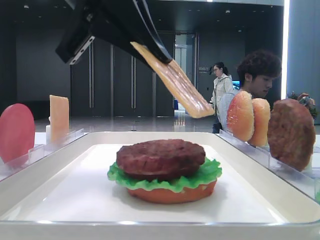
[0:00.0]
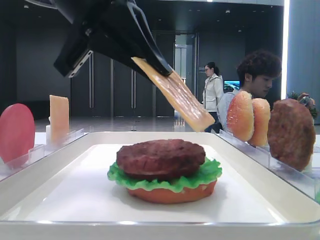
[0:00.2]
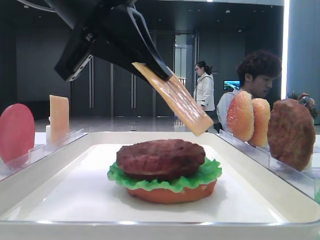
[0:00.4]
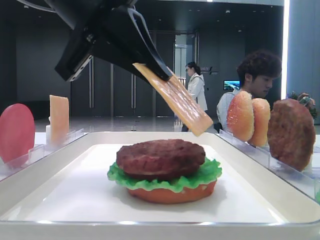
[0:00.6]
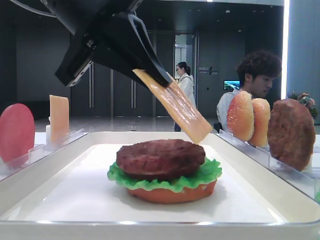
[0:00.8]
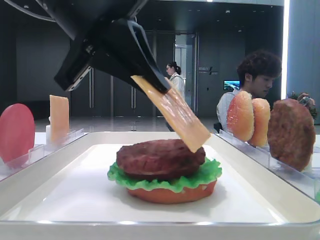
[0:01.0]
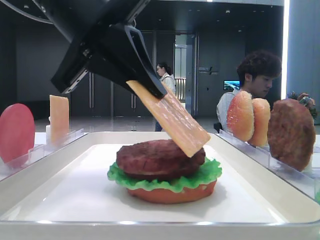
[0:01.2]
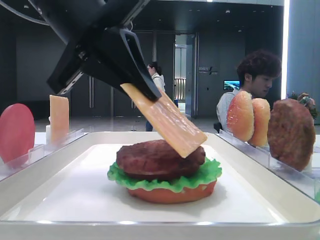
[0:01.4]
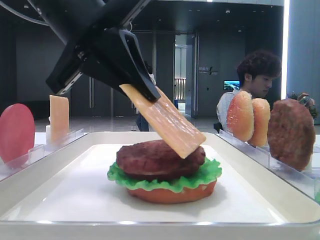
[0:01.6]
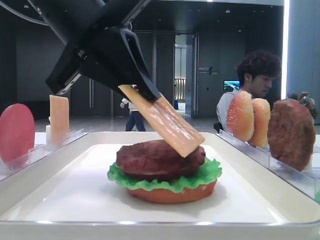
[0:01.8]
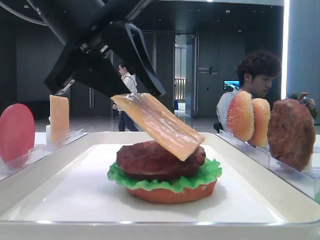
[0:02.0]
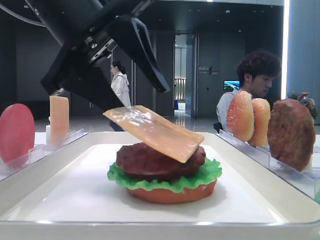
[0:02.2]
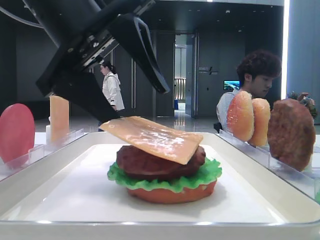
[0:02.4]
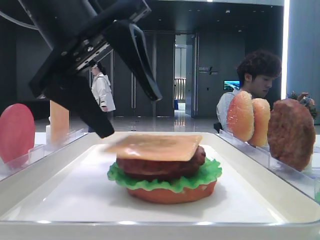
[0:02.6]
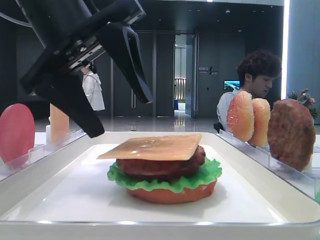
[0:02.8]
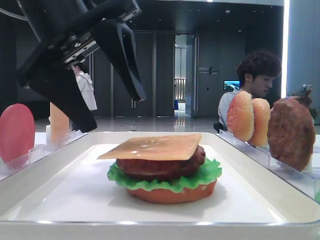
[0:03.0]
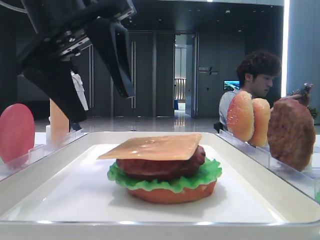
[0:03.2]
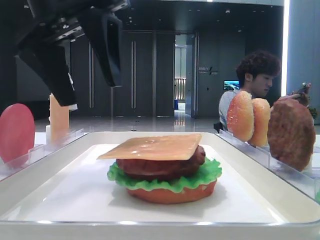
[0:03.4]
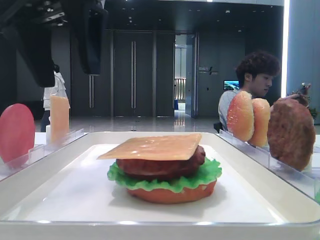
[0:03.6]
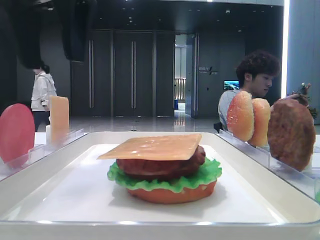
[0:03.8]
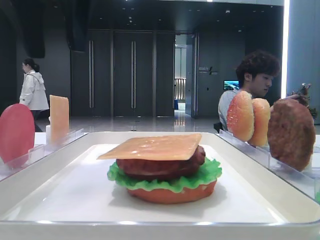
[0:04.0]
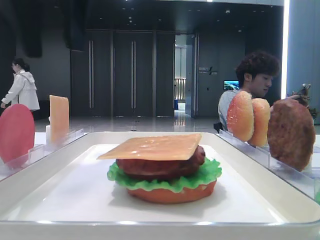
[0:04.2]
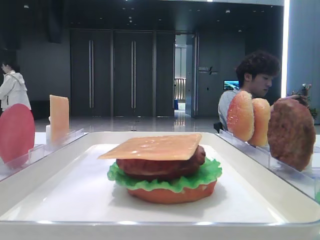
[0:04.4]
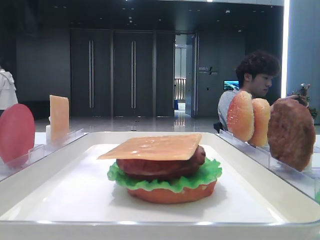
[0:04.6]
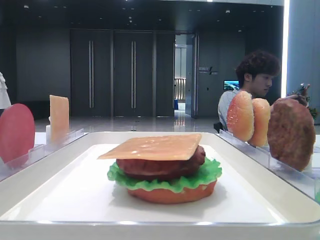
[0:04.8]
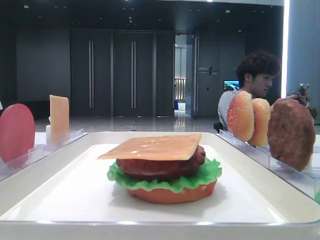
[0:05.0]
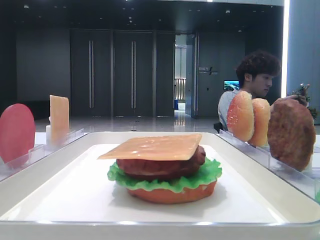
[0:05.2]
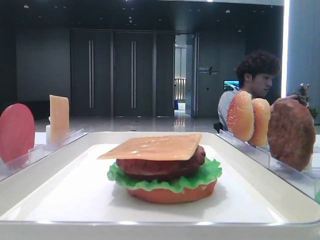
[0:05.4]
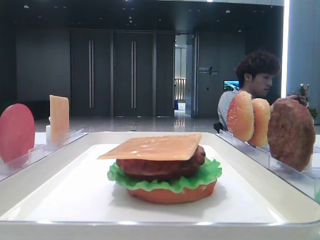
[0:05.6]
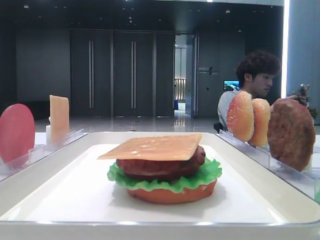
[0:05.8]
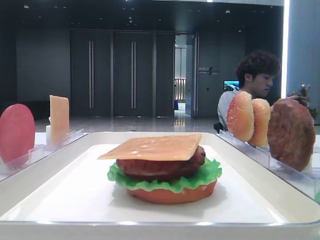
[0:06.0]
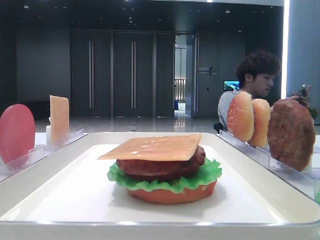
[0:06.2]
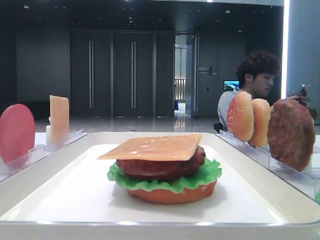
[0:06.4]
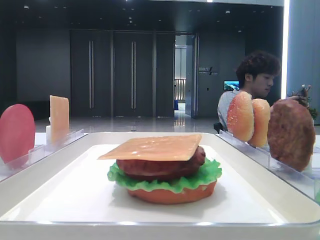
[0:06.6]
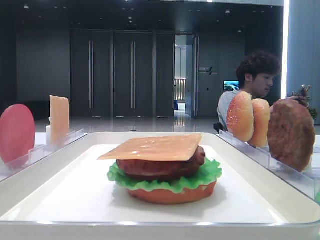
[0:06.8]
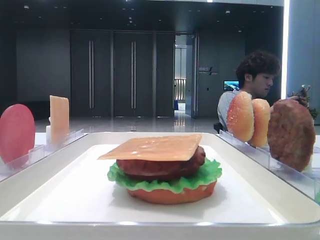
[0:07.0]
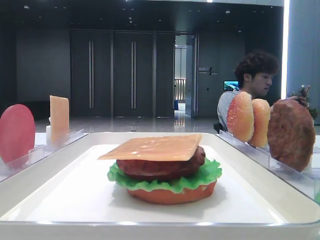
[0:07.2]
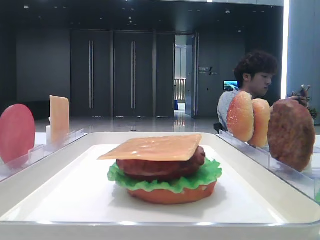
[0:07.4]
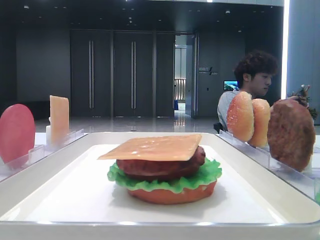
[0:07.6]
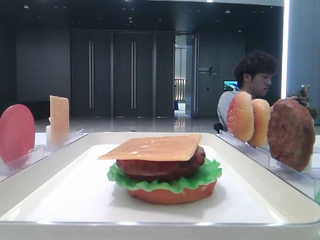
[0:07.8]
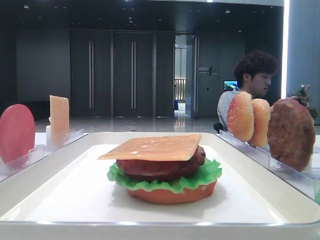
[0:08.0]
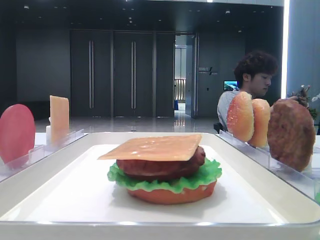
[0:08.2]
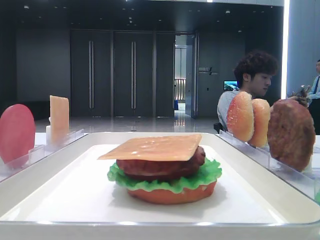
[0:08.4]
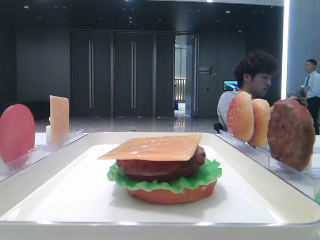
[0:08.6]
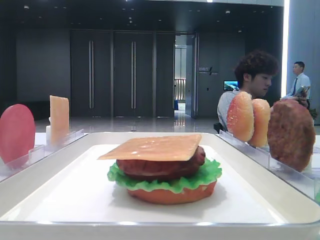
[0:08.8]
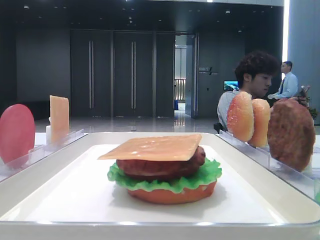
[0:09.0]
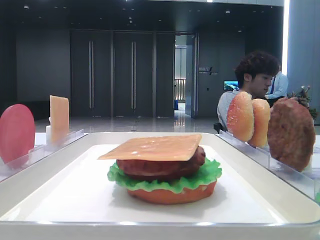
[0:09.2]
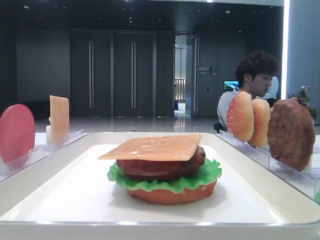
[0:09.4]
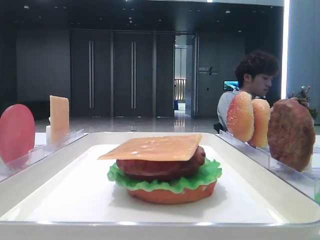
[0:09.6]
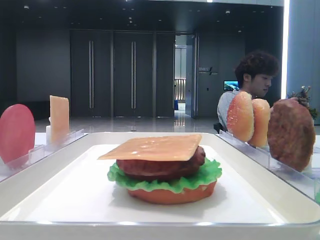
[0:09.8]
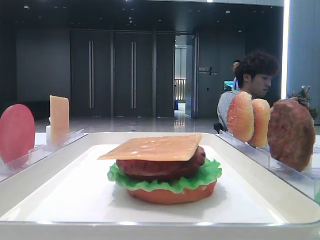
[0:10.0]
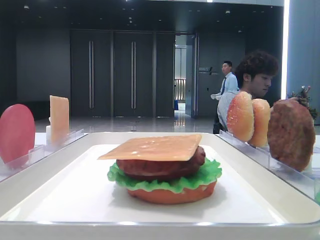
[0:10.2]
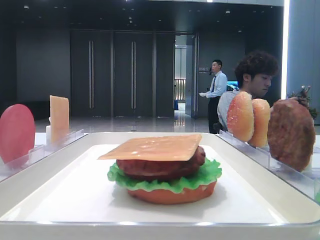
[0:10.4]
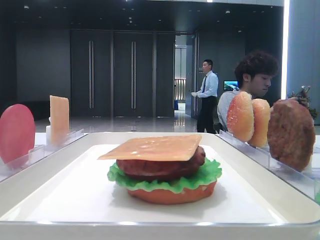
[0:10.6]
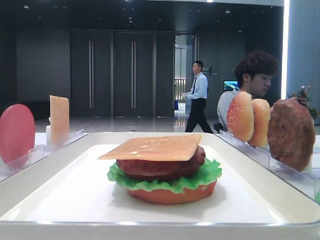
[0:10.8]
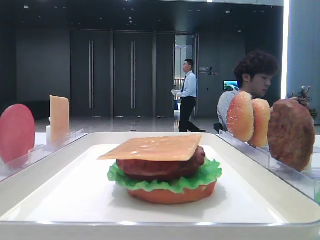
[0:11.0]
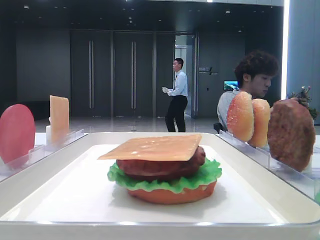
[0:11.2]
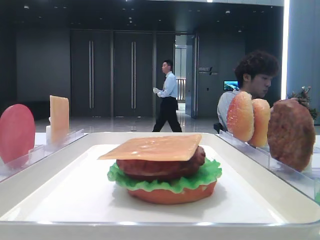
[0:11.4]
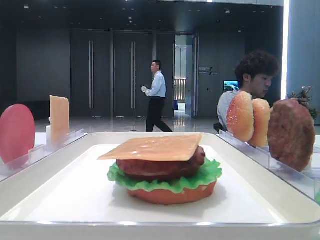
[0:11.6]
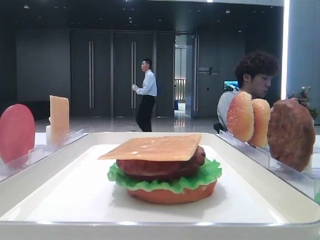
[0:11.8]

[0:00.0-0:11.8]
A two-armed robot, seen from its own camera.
Step, 0:00.0 to 0:02.4: Place the cheese slice on the patty with the left hand.
0:00.0 to 0:01.4: The grippers make only small movements.
0:01.4 to 0:03.0: The left gripper opens up.
0:03.0 to 0:04.4: The left gripper goes approximately 10 cm upward and to the left.
0:04.4 to 0:06.0: The left gripper travels backward and to the left by some 25 cm.
0:07.4 to 0:11.8: Both grippers stay about where they are.

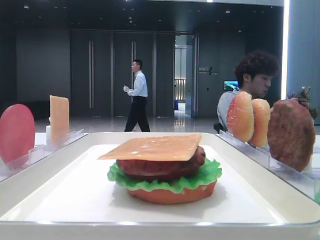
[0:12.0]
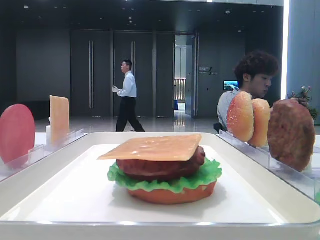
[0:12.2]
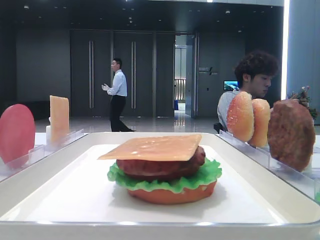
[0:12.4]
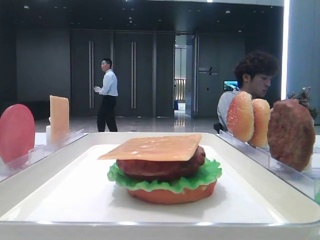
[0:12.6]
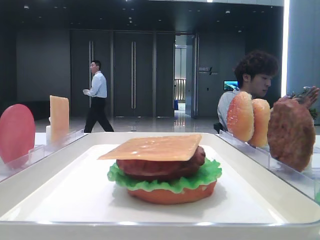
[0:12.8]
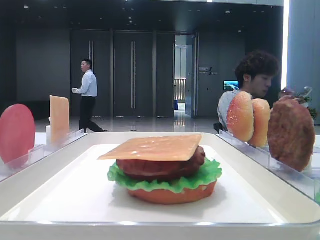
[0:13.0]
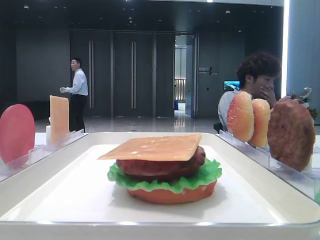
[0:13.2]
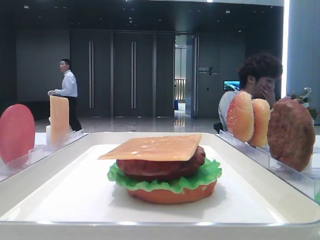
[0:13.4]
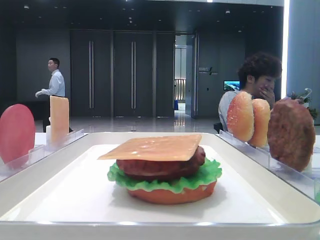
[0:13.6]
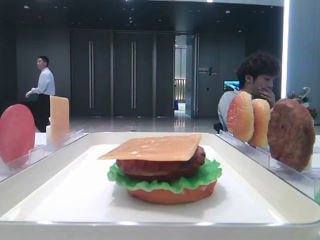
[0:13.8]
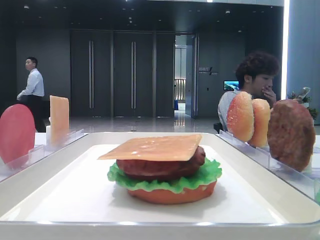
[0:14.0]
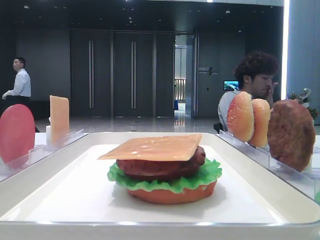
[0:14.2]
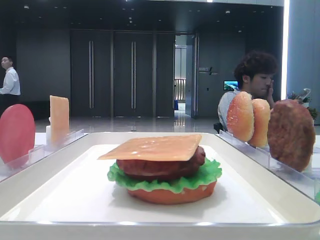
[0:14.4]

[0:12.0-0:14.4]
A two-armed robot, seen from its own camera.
0:12.0 to 0:14.4: Both grippers stay about where they are.

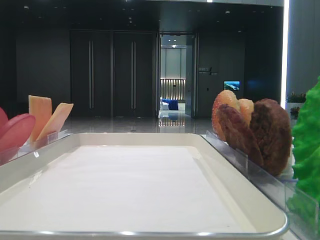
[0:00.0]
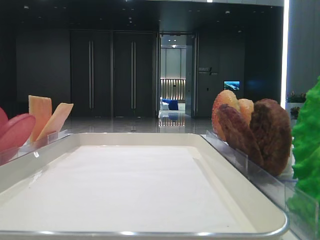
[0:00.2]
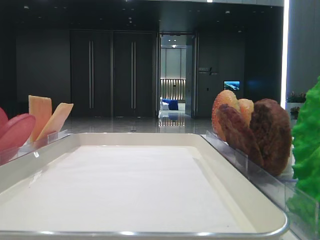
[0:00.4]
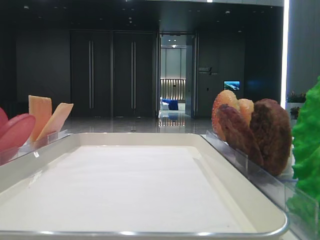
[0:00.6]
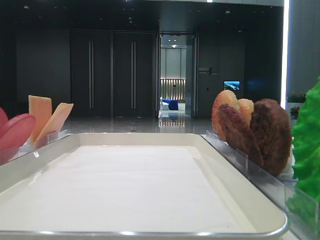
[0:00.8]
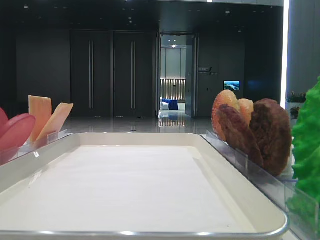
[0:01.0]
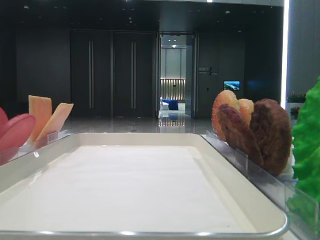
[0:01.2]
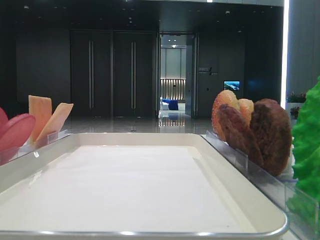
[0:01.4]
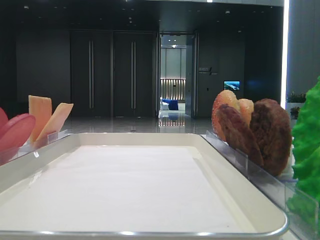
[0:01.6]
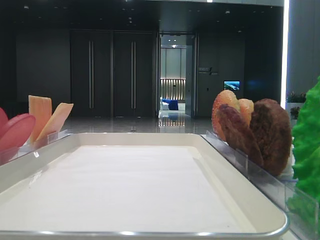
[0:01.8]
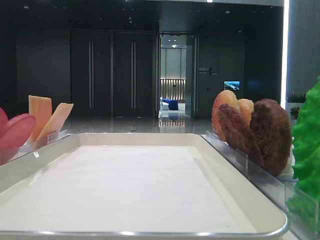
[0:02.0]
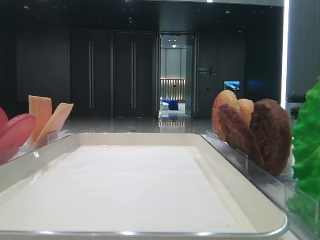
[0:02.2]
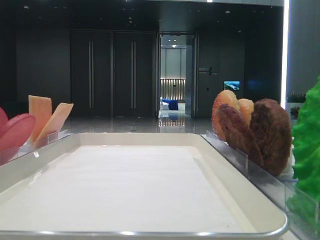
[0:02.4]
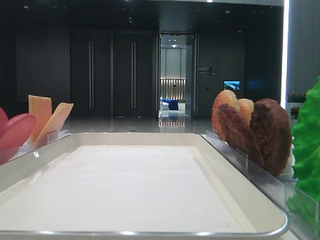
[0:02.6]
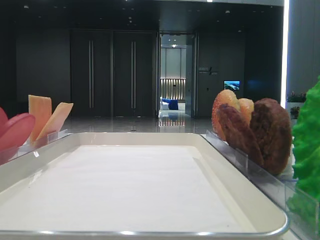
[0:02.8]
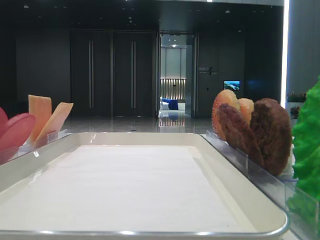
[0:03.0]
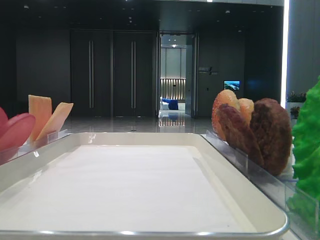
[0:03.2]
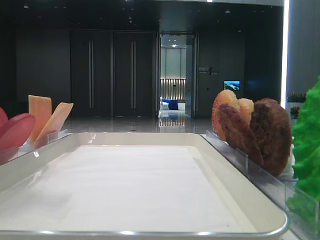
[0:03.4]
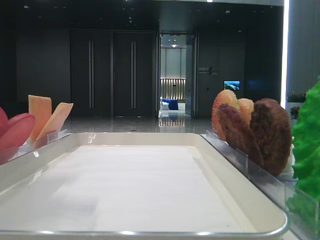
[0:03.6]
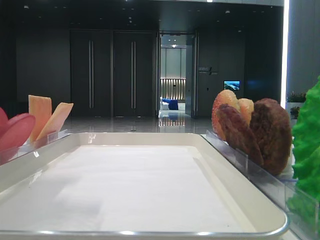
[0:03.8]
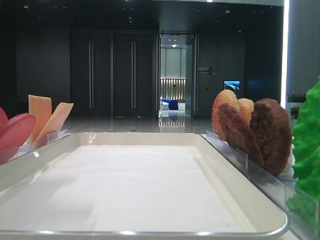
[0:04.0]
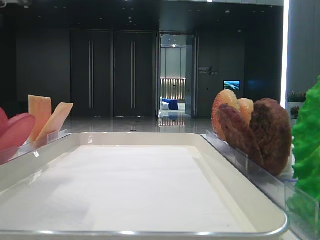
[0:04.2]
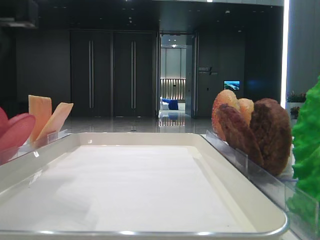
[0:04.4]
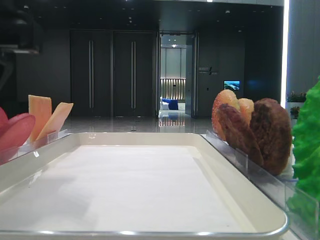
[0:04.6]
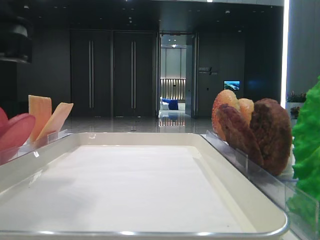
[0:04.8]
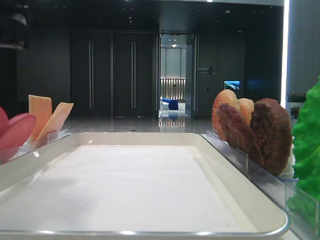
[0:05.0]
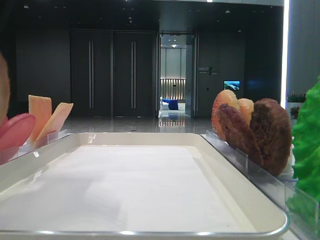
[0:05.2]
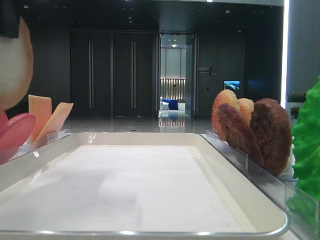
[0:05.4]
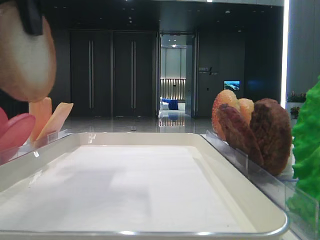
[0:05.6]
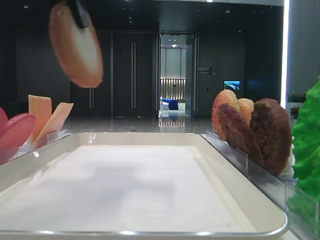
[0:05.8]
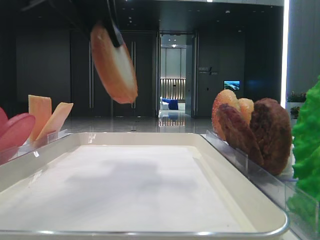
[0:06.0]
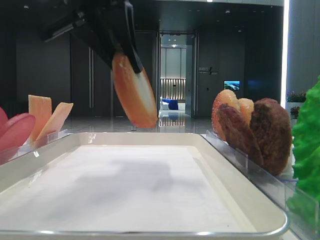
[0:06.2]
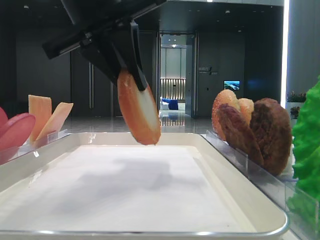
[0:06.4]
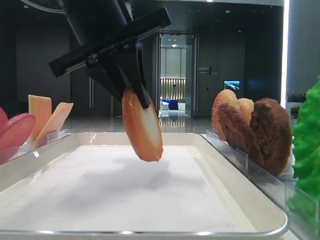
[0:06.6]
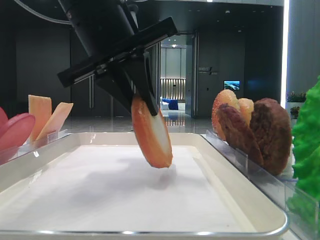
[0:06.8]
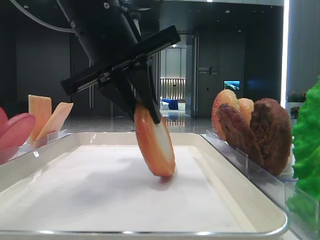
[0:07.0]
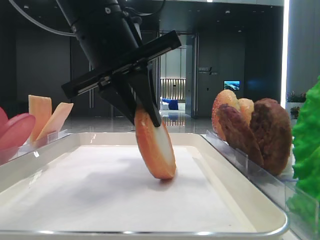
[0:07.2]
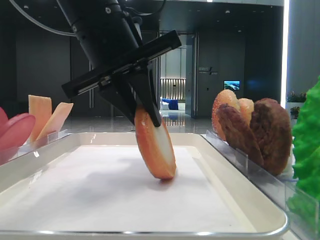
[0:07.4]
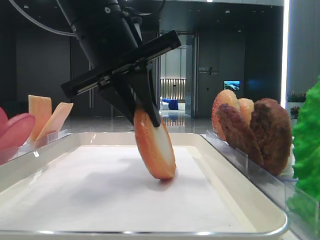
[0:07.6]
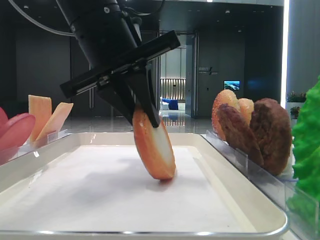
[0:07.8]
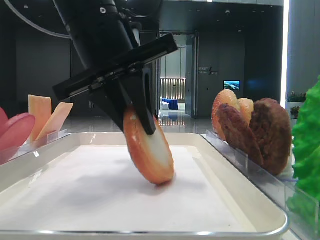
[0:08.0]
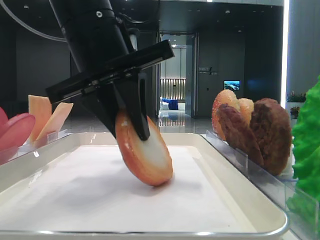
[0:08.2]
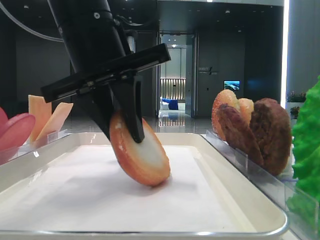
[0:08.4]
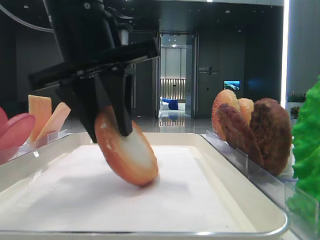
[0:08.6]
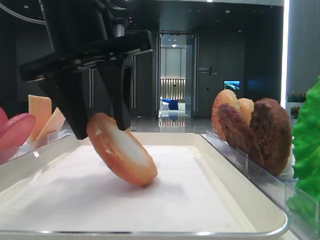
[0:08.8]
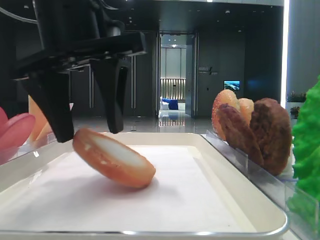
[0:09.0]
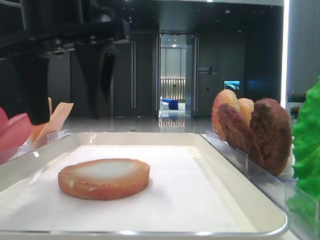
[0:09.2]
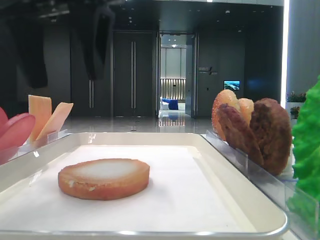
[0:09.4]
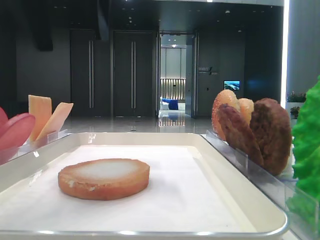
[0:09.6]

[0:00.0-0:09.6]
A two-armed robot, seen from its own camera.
Step, 0:00.0 to 0:04.8: Pick up the bottom bread with the left hand.
Step, 0:05.0 to 0:09.0: Place the bread on the tray with the left hand.
0:03.2 to 0:04.8: The left gripper moves to the right and downward, approximately 15 cm, and closes its fingers.
0:04.8 to 0:06.4: The left gripper is displaced to the right and forward by roughly 10 cm, and goes upward and returns, about 10 cm each way.
0:06.4 to 0:08.0: The grippers move only a little.
0:08.0 to 0:09.6: The left gripper goes some 10 cm upward, and opens.
